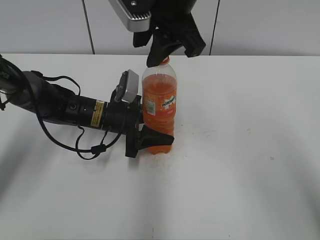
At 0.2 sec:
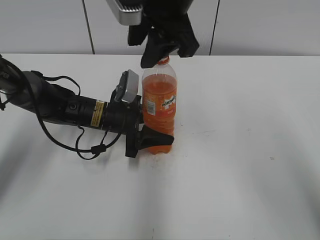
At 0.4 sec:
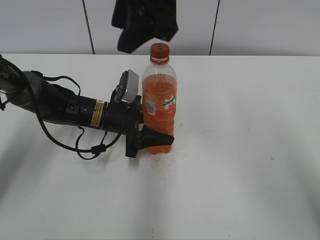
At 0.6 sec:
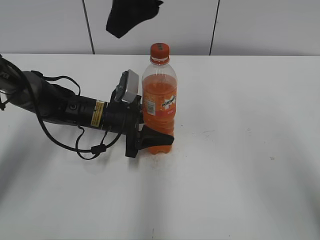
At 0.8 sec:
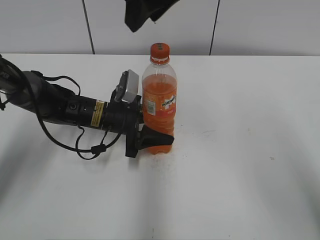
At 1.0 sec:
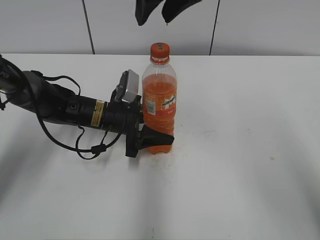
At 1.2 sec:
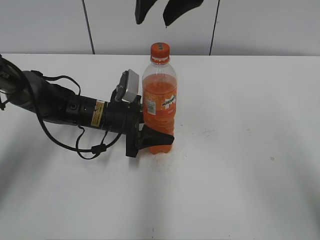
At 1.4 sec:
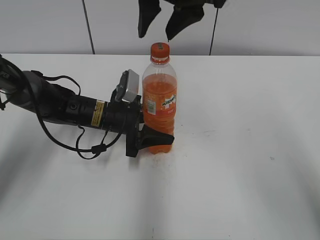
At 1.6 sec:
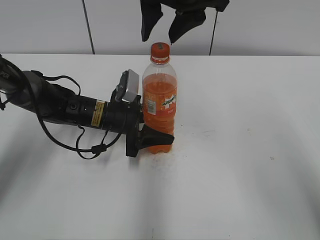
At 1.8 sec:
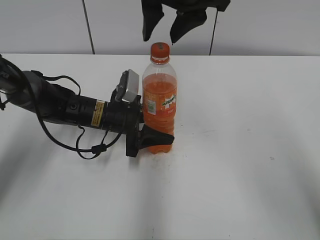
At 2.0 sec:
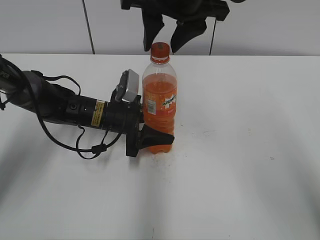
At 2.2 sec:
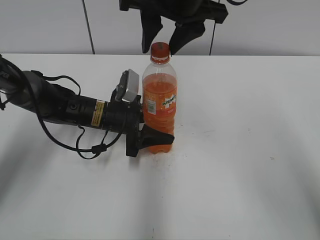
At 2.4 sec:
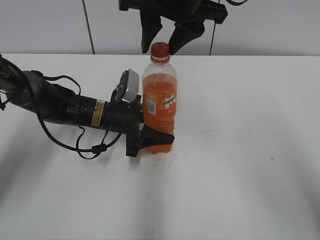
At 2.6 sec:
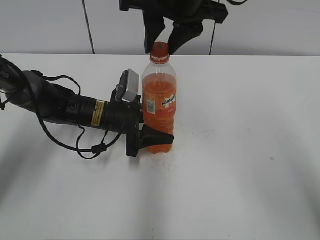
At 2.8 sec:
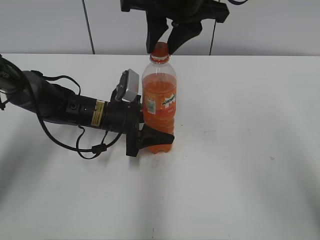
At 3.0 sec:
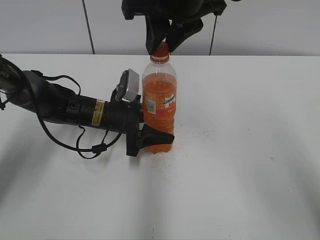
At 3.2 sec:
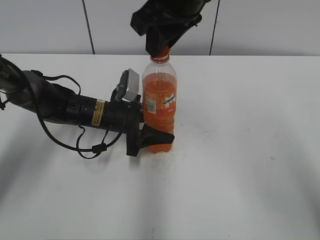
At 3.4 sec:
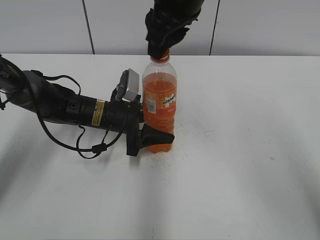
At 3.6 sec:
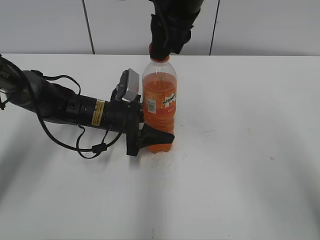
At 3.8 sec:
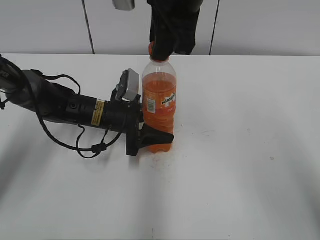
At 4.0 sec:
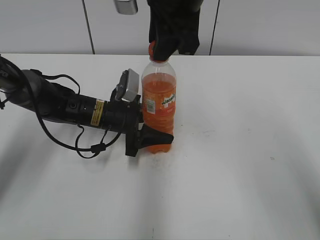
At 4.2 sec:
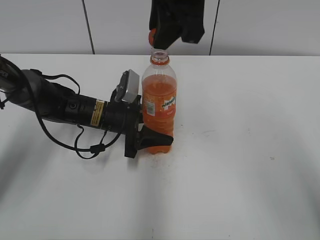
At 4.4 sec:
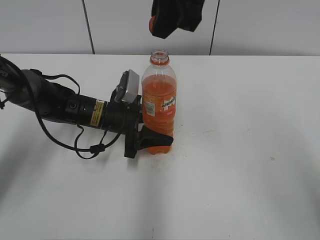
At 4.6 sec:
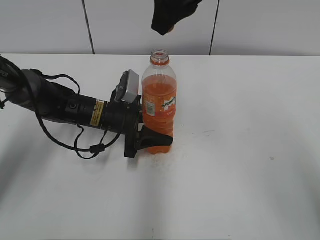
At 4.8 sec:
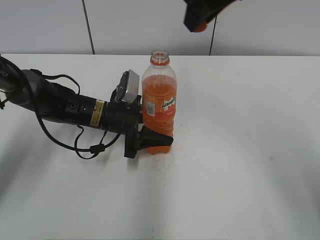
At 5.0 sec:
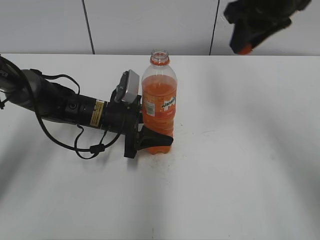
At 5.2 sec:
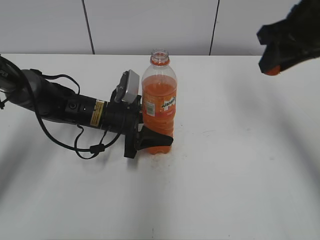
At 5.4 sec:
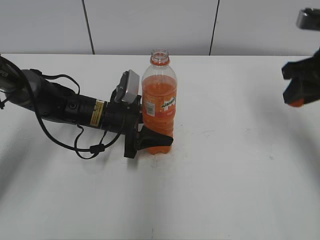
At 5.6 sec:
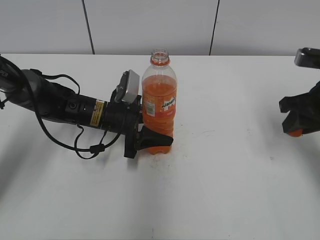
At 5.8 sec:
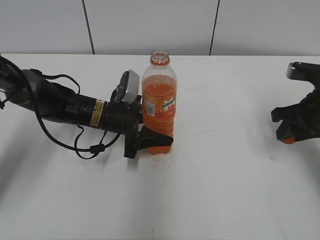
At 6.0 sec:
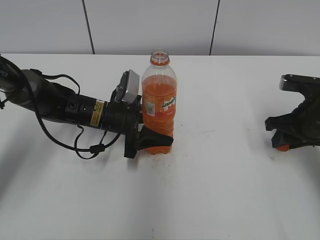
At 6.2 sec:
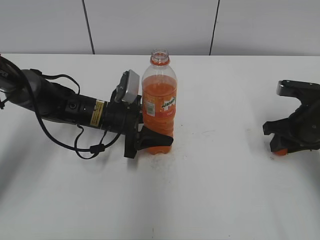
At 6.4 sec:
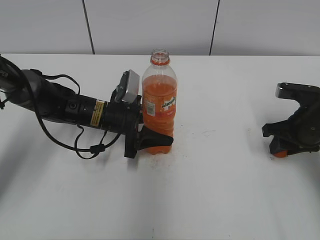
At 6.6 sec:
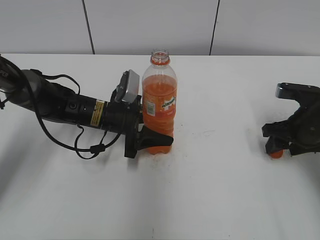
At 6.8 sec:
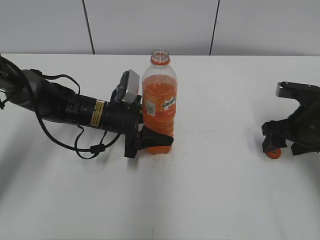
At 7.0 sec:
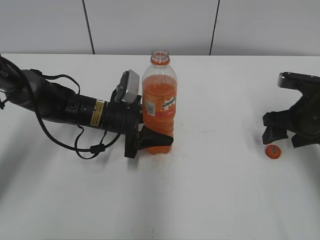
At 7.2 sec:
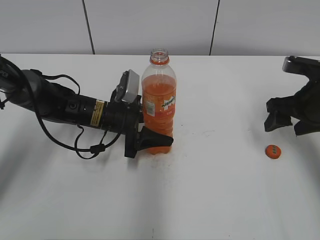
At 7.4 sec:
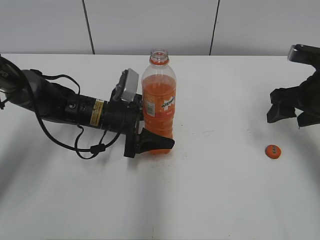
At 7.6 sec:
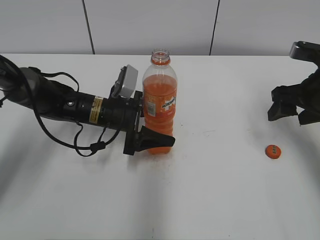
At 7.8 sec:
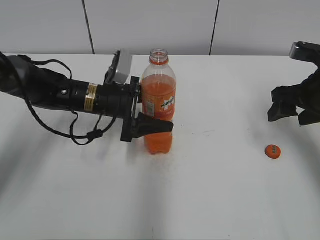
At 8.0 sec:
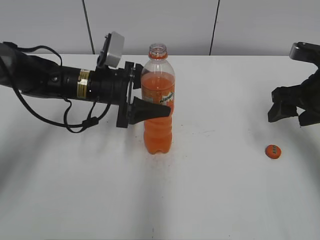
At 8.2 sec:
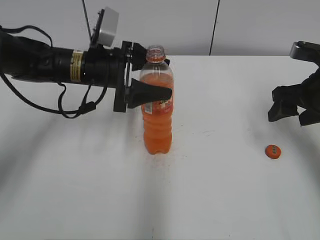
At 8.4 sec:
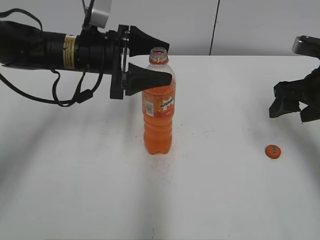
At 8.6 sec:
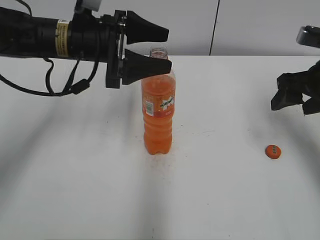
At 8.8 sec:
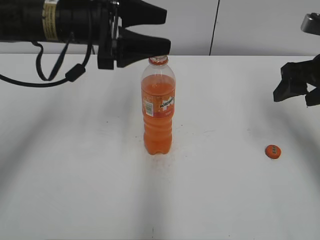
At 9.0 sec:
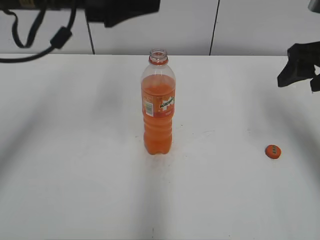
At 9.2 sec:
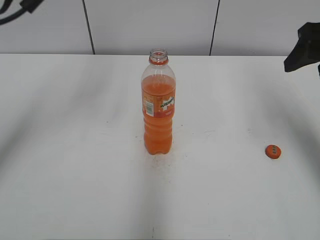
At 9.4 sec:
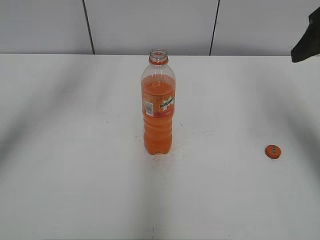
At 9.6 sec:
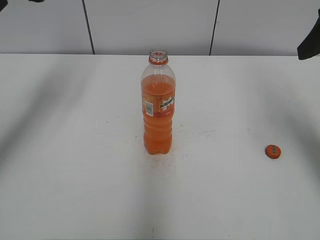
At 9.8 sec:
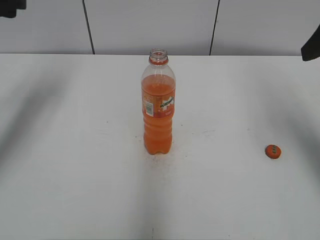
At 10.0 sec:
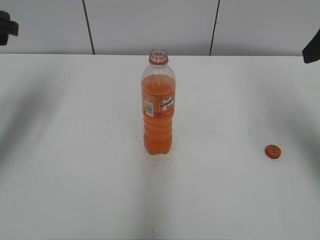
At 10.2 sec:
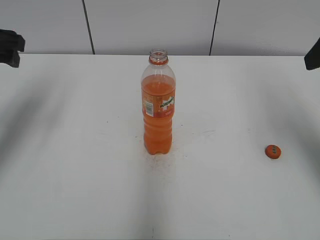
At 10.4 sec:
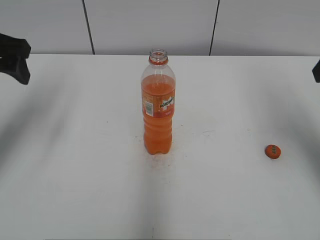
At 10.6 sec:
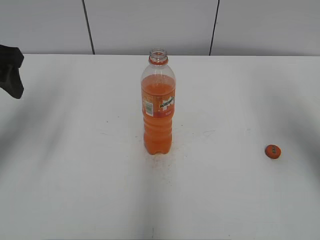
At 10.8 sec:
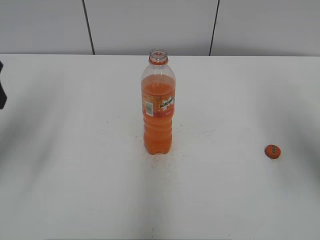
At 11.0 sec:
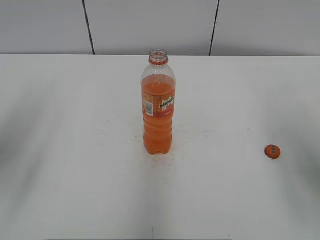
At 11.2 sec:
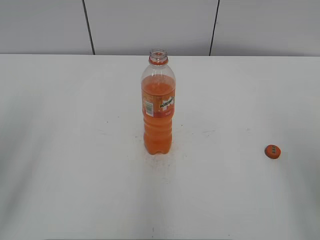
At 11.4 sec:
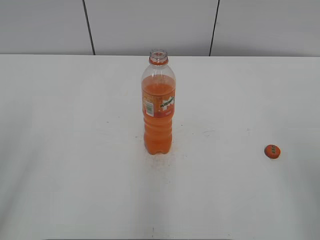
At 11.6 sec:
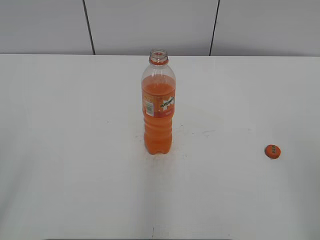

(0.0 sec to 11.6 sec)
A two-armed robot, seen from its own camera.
Step, 4.2 sec - 6.6 sec: Place the bottle cap on the right.
1.4 sec - 2.8 sec: The right gripper closes up.
4.4 sec - 5.8 sec: The right gripper is displaced to the right and downward by approximately 30 cm.
5.8 sec - 7.2 sec: The right gripper opens its fingers.
7.2 sec - 8.8 sec: The right gripper heads upward, covering roughly 5 cm. The left gripper moves upward, some 20 cm, and opens up.
8.8 sec - 10.2 sec: The left gripper heads to the left, covering about 15 cm, while the right gripper is displaced upward by roughly 10 cm.
10.2 sec - 11.6 sec: The grippers both shift backward by approximately 25 cm.

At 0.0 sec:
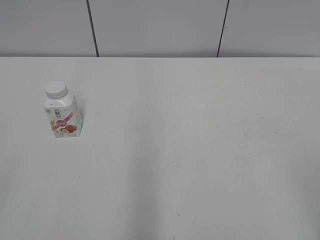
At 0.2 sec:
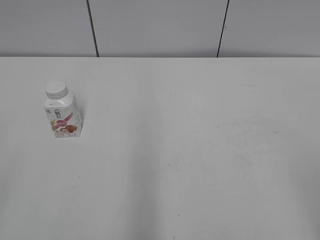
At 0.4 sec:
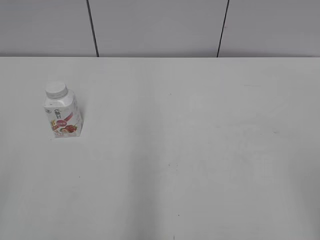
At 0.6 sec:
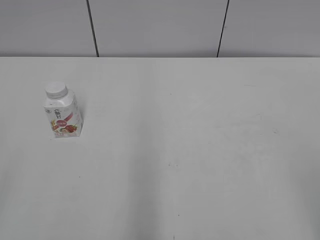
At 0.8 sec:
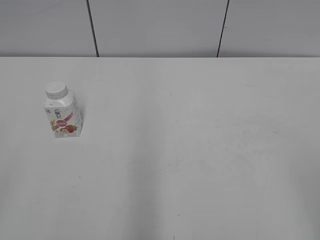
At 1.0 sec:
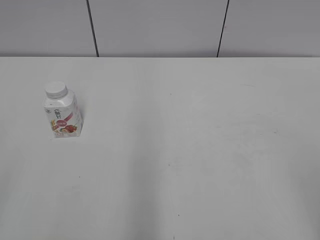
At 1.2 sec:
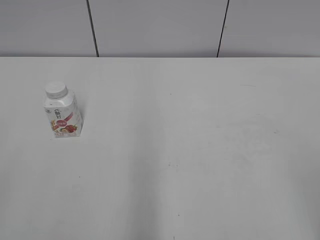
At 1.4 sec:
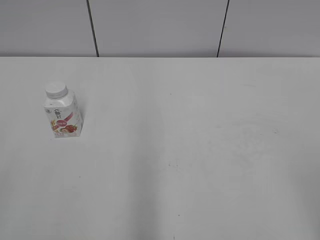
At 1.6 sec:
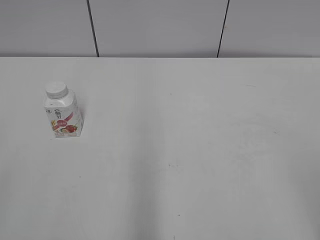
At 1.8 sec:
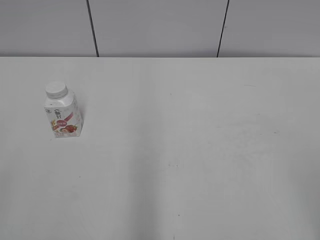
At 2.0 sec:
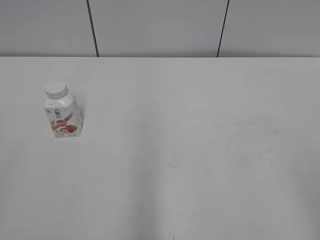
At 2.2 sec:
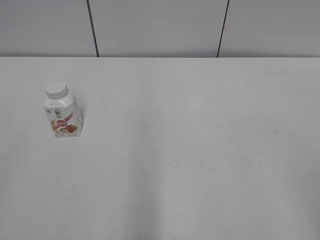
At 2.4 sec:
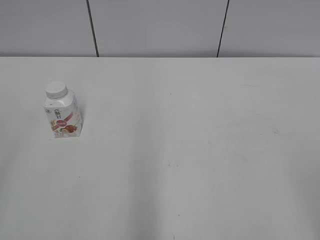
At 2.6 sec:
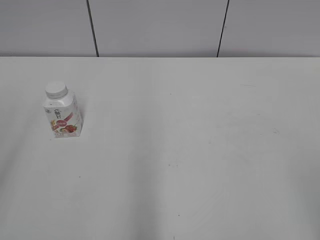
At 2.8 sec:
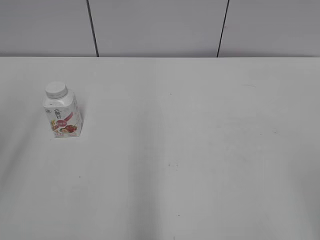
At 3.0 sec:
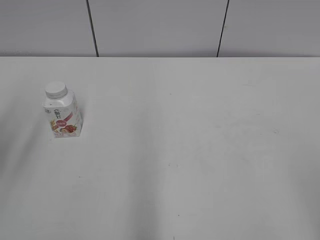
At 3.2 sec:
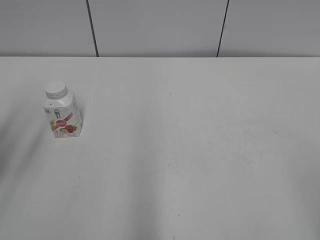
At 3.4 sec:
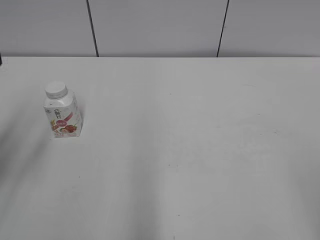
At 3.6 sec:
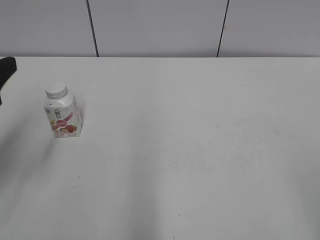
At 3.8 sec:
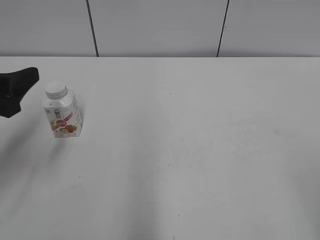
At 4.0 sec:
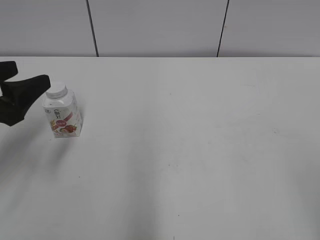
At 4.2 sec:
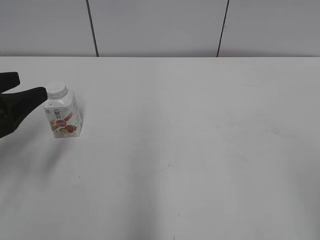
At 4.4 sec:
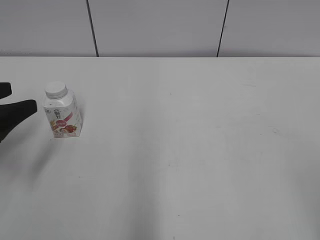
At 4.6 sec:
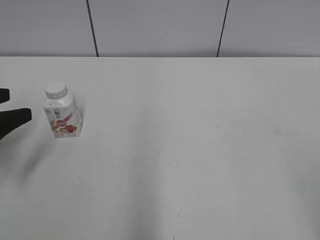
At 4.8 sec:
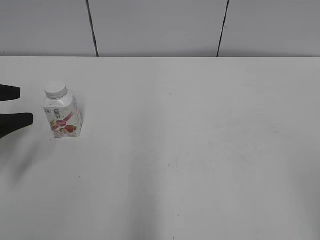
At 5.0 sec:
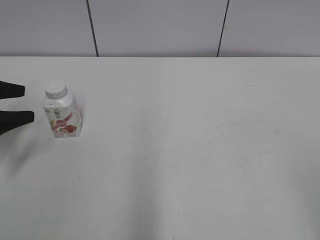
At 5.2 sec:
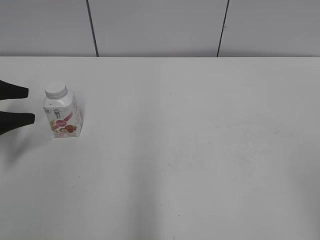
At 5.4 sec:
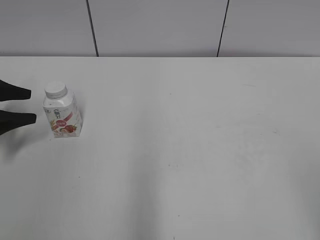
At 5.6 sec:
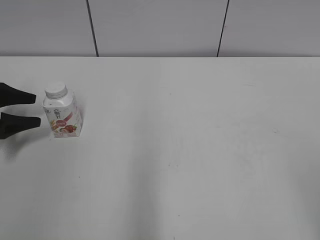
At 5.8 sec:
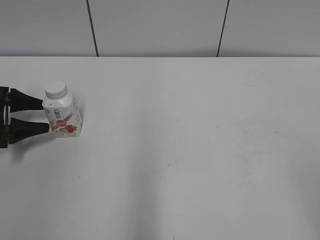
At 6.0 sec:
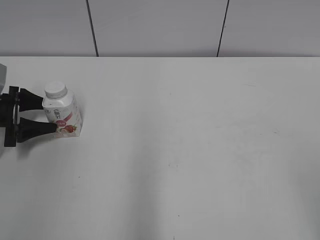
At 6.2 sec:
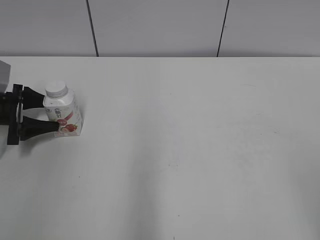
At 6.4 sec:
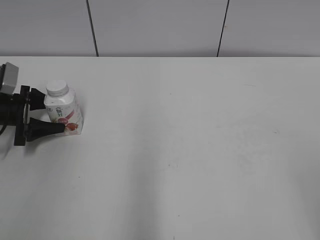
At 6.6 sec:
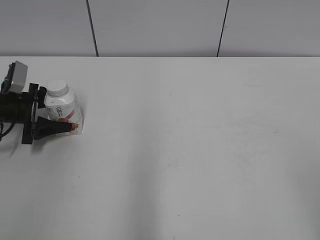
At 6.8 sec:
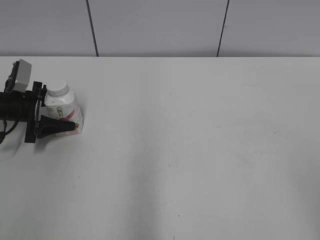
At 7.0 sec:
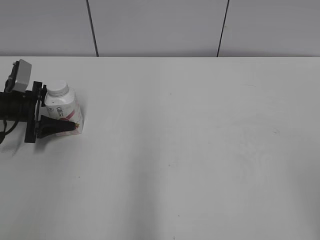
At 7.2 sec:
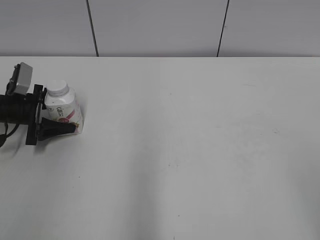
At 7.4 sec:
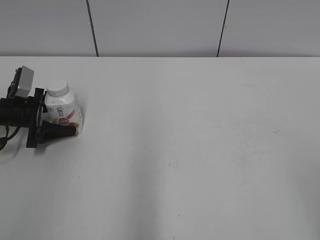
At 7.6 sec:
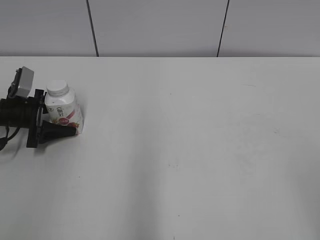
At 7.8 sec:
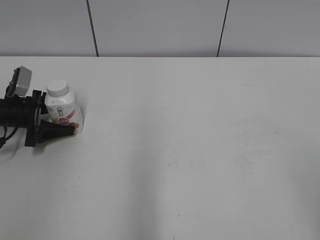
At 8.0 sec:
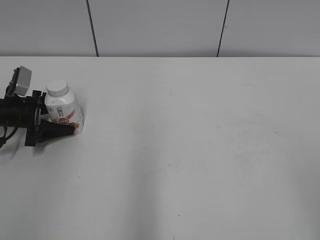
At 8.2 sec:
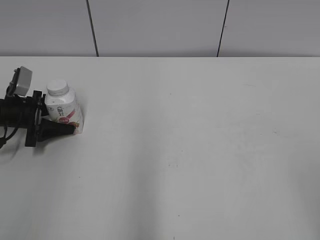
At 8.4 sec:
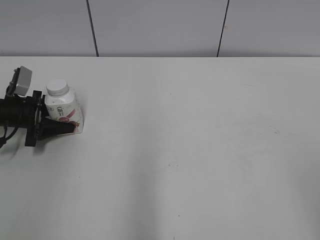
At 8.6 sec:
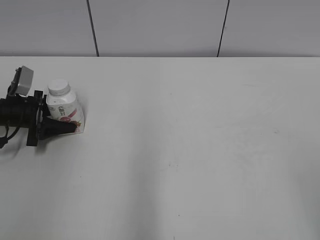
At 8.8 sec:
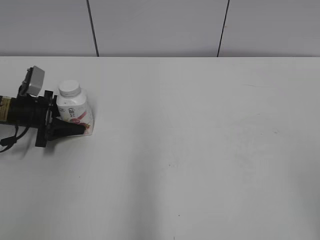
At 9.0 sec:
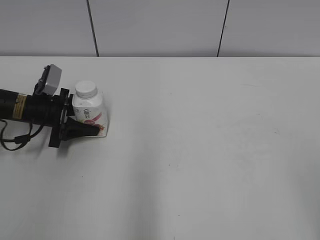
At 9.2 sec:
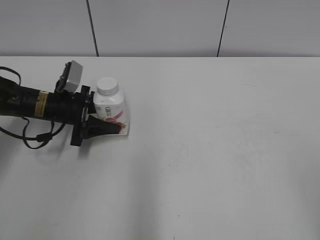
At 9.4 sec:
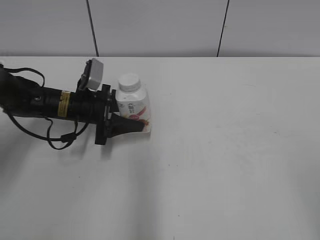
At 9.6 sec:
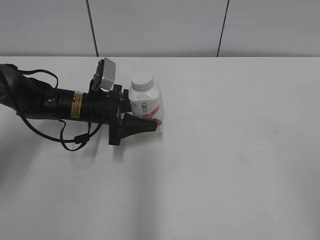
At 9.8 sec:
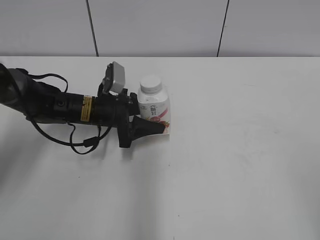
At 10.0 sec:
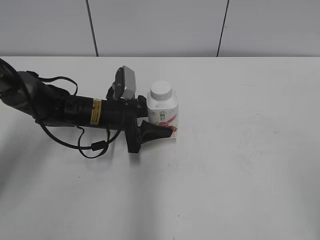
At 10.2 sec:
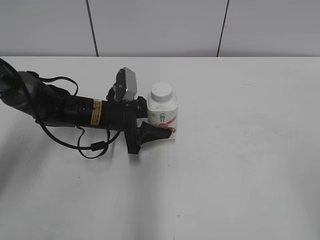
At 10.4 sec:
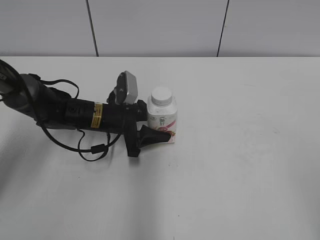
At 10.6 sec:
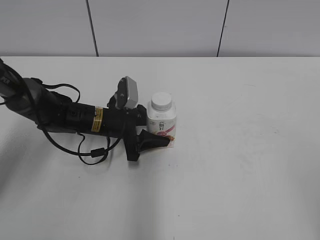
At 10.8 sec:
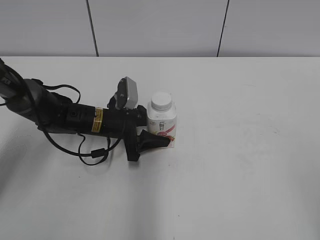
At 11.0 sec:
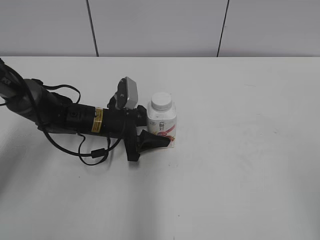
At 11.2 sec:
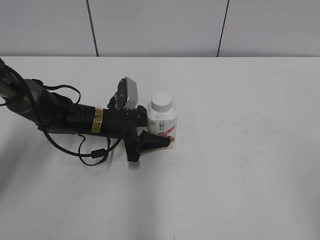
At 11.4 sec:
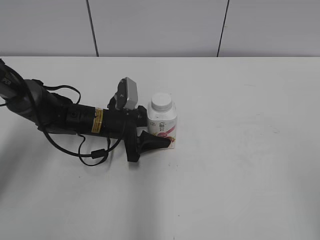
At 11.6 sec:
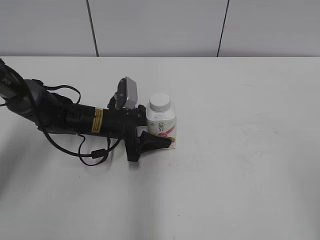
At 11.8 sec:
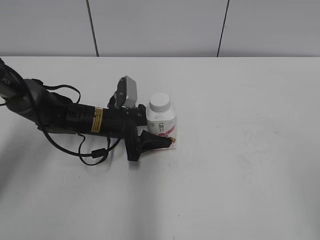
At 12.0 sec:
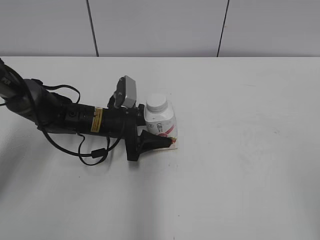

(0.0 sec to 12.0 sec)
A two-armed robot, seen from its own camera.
Step, 0.0 sec - 8.2 sec: Grab the Yili Changqing with the left hand.
1.6 sec - 3.0 sec: The left gripper goes roughly 15 cm forward.
3.0 sec - 4.4 sec: The left gripper shifts about 15 cm downward and forward.
4.4 sec - 6.0 sec: The left gripper heads forward and downward, covering about 15 cm.
6.0 sec - 7.6 sec: The grippers move only a little.
7.6 sec - 9.0 sec: The left gripper shifts some 5 cm to the right, and closes.
9.0 sec - 10.4 sec: The left gripper travels to the right by about 15 cm.
10.4 sec - 12.0 sec: Both grippers stay about where they are.
